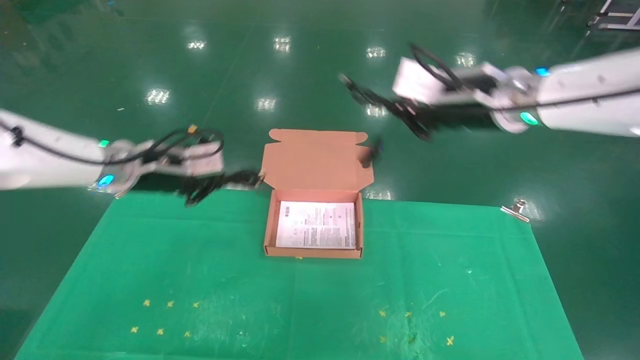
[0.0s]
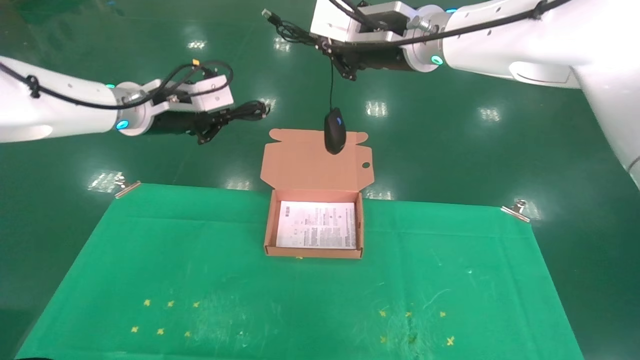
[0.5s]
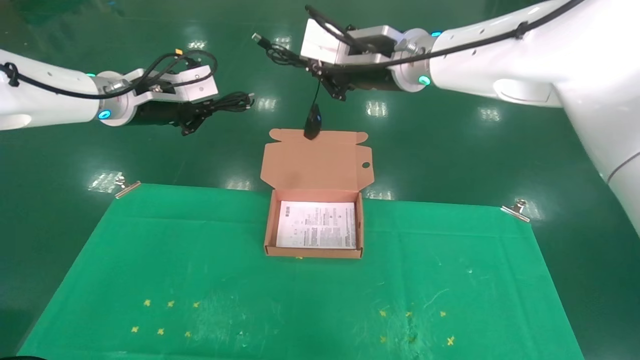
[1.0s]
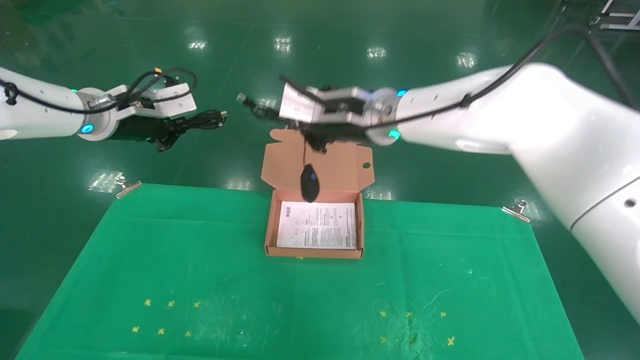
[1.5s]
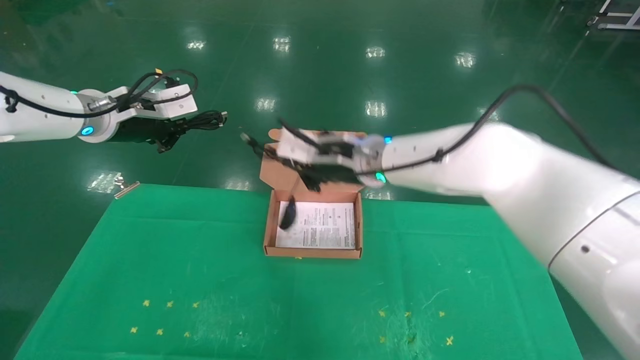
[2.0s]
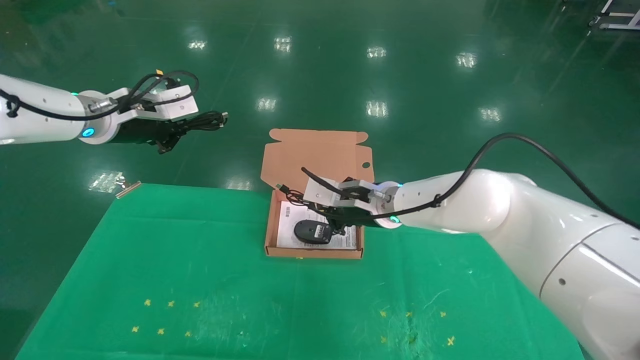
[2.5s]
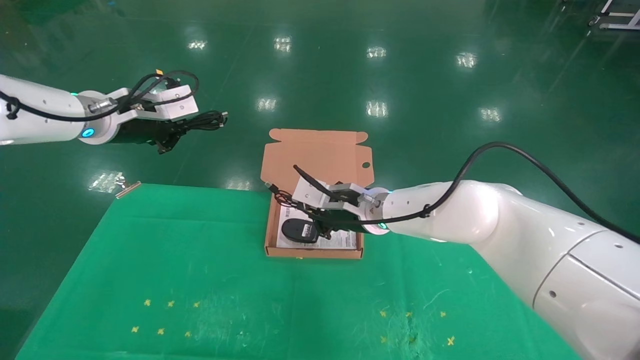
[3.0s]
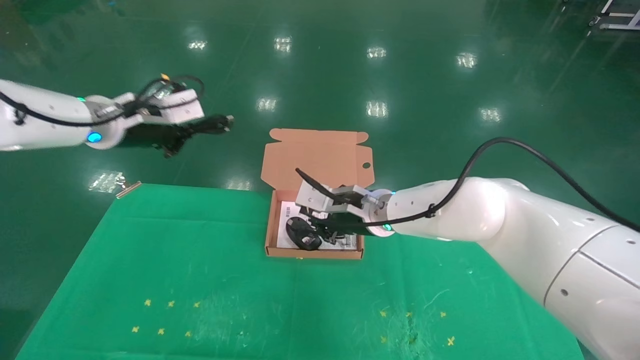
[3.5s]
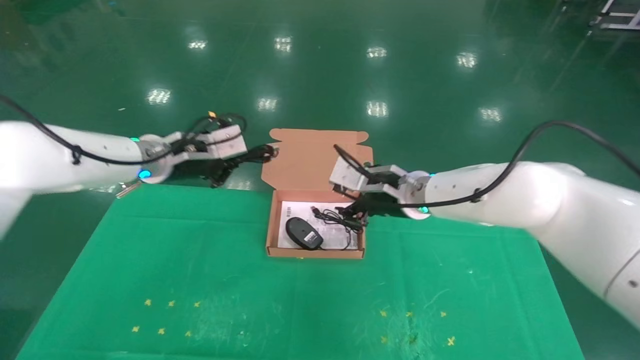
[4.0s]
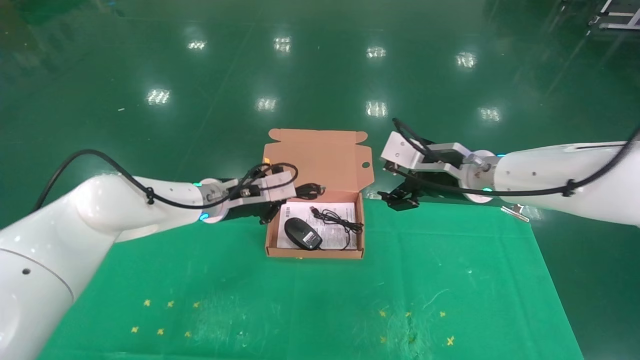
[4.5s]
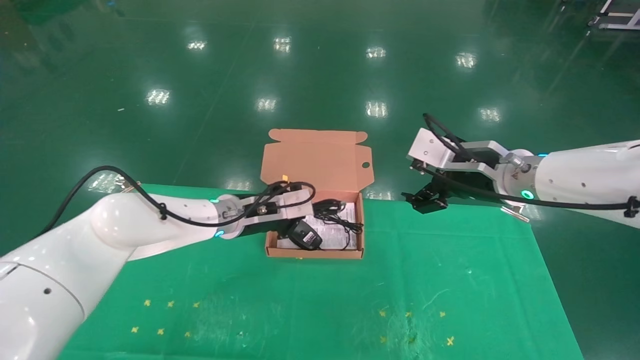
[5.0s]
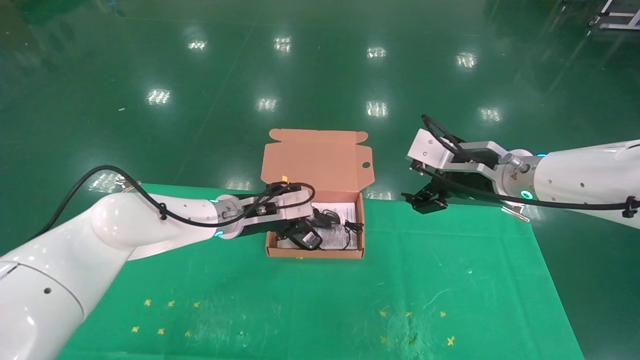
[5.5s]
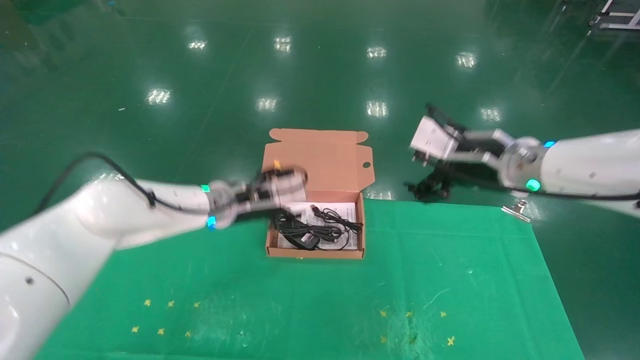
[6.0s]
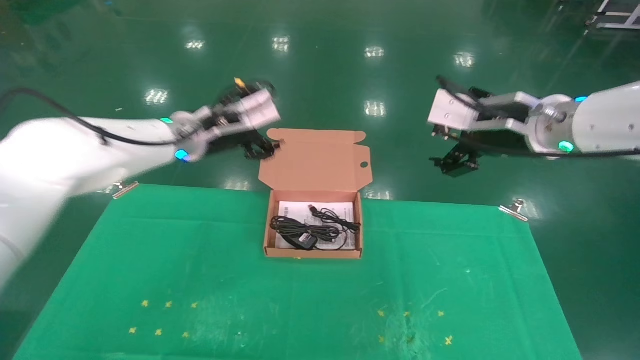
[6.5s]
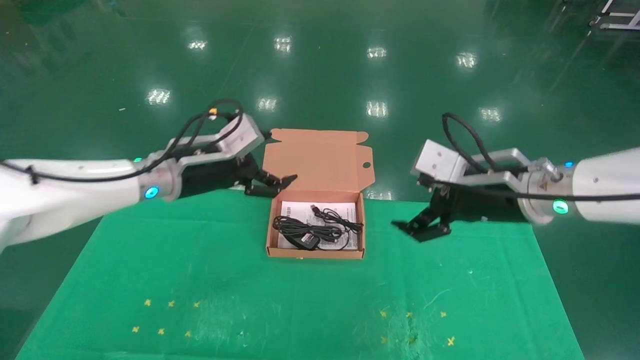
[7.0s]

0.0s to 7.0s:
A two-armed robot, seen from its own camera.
Task of the whole recording: grasp data cable left put into box grasp mouse right put into box.
Step, 0.0s to 4.5s: Place the mouse and power cord into the box.
0.0s to 2.0s: The right gripper travels to the left and downward by approximately 15 cm; the left gripper is displaced upward by some 5 cm.
2.0s to 3.5s: The right gripper is displaced downward by approximately 10 cm.
3.5s to 5.0s: The left gripper shifts about 20 cm downward and to the right; the right gripper moves to the right, upward and backward, approximately 20 cm, and opens up.
5.0s to 7.0s: The left gripper heads upward, to the left and backward, covering about 10 cm, and opens its fingers.

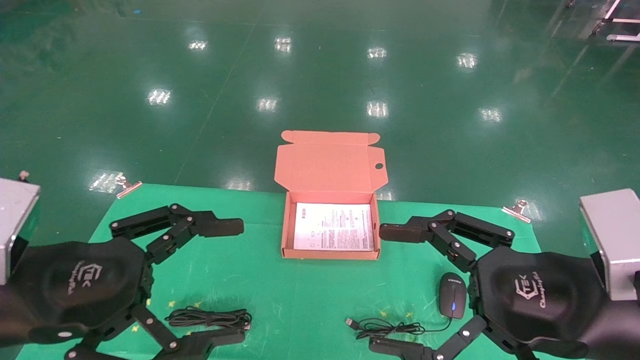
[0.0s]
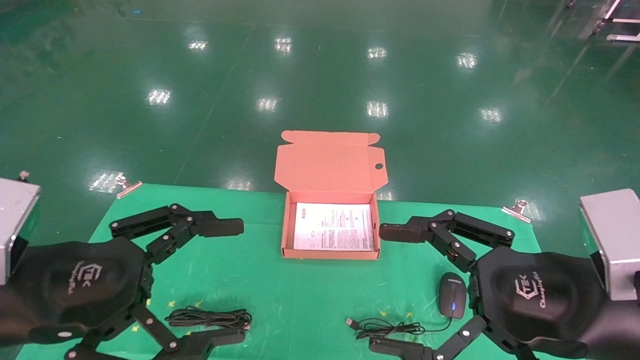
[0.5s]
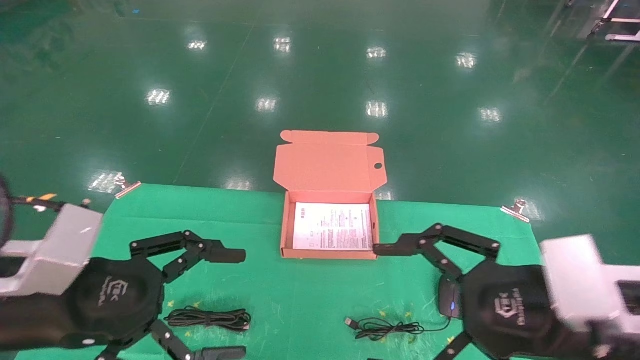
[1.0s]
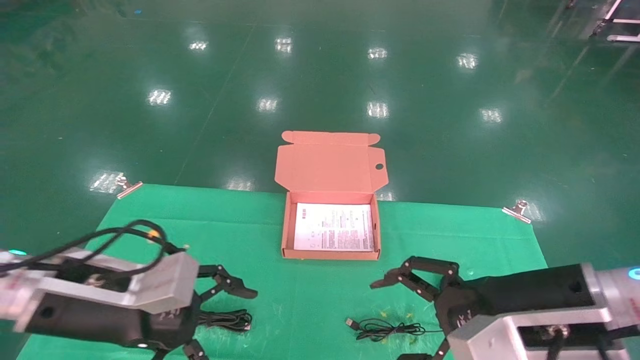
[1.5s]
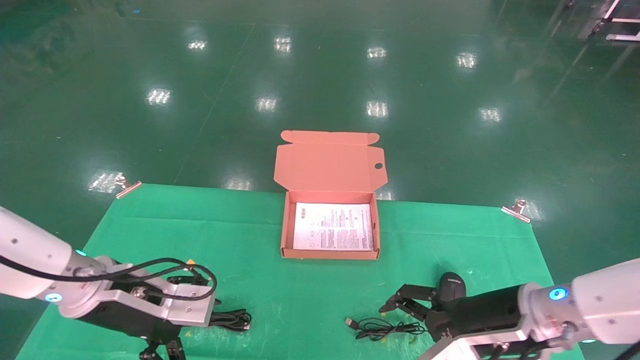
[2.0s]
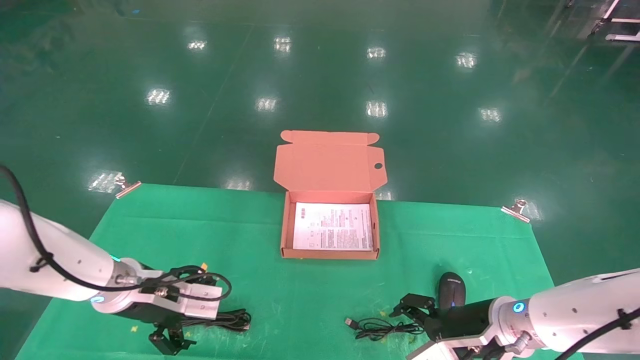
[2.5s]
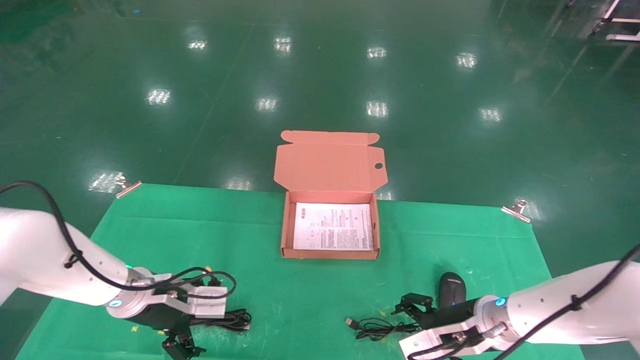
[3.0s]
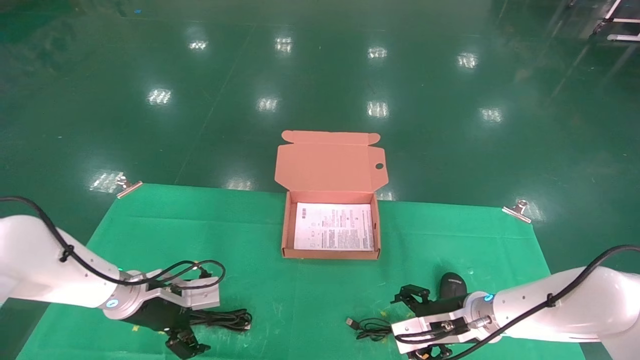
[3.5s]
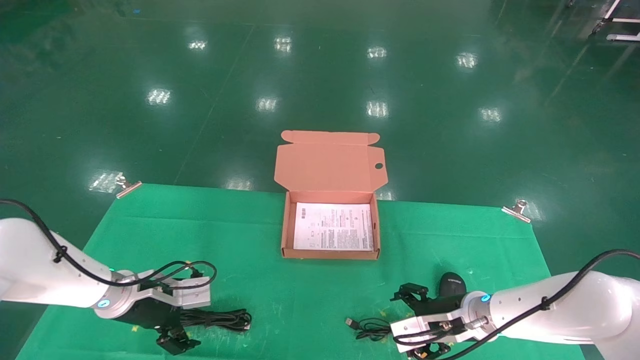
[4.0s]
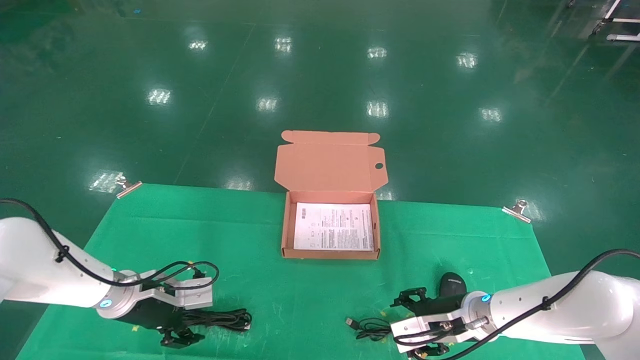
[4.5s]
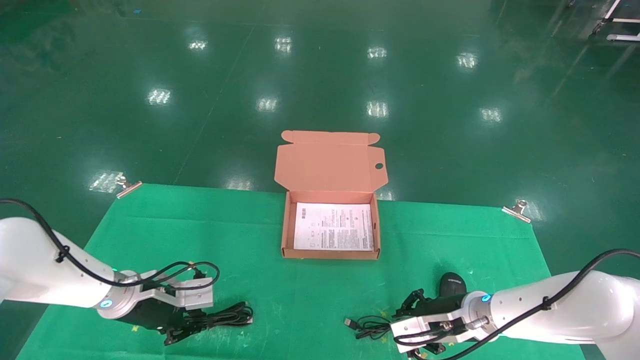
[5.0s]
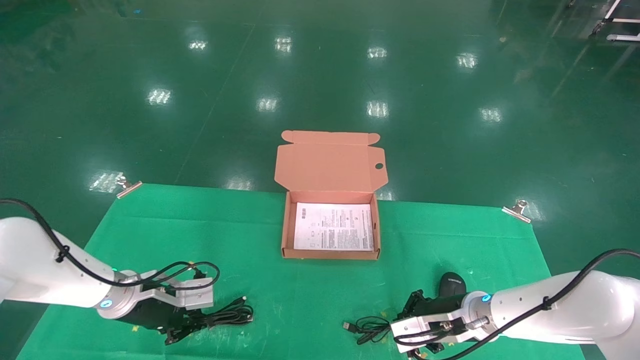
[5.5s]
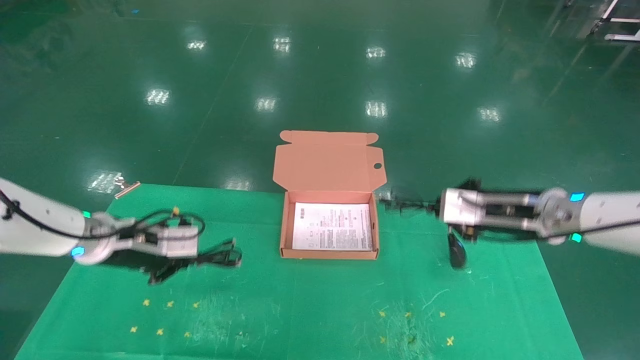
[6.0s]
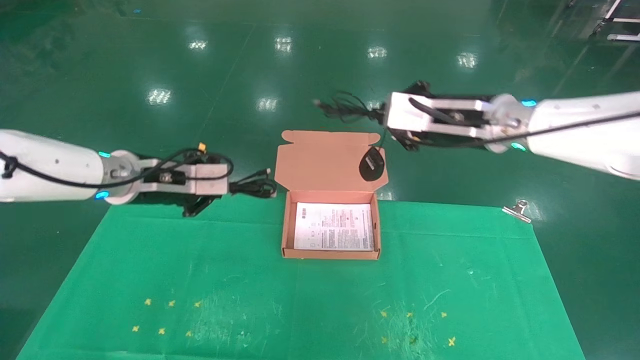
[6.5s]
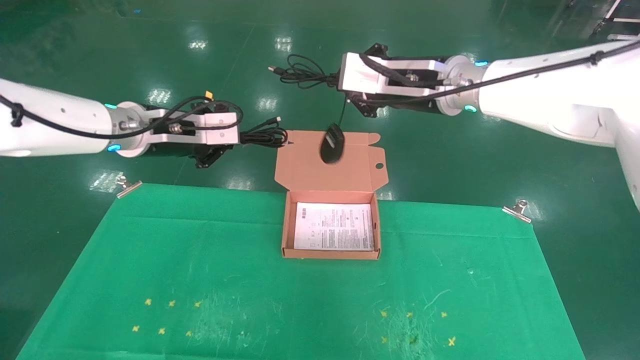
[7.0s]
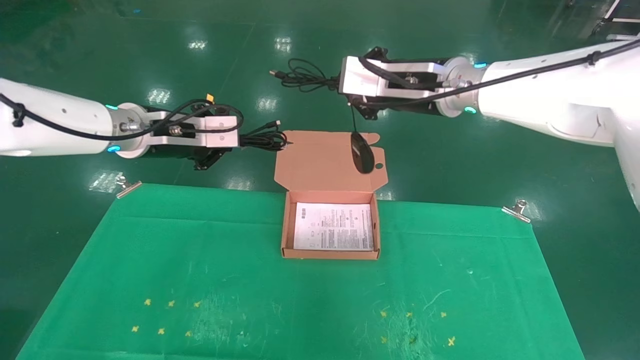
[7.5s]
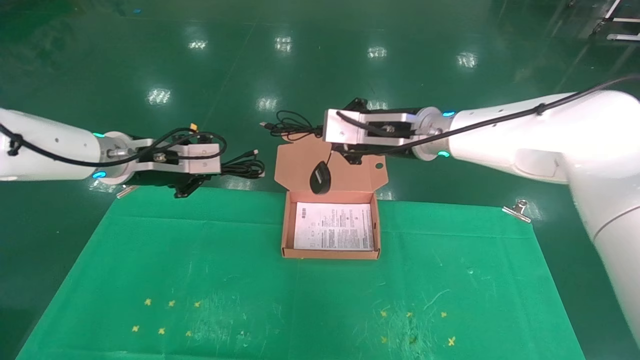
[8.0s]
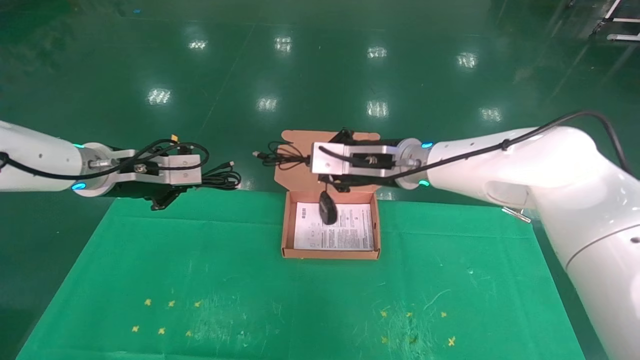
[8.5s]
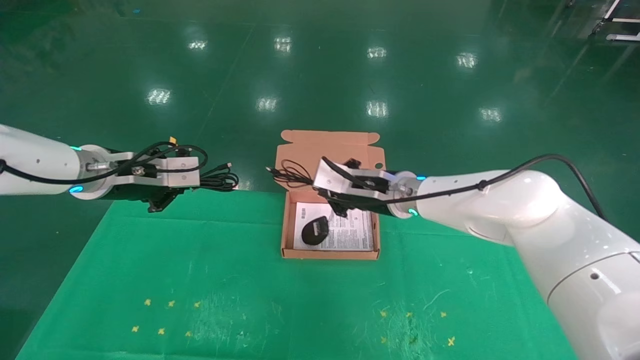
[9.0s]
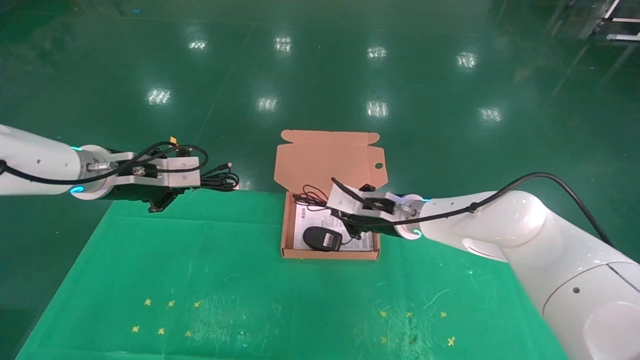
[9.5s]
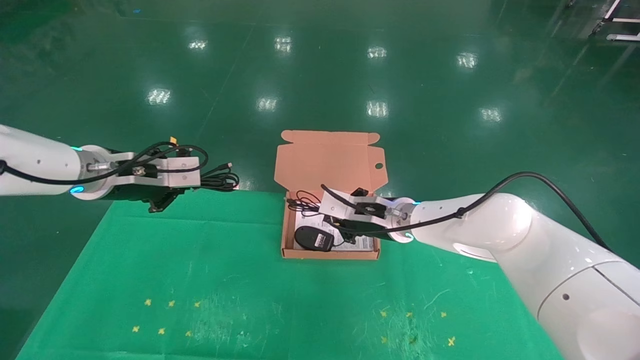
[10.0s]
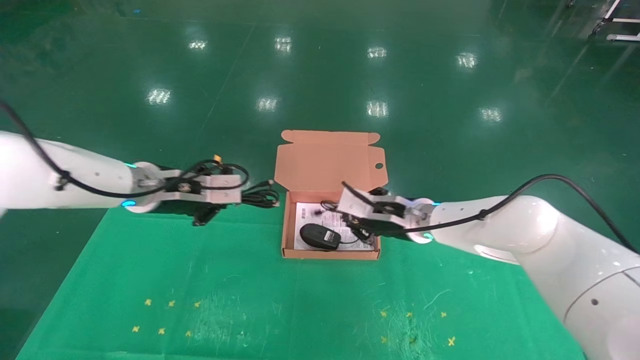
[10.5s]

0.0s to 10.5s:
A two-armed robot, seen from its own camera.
Task of the whole recording: grasp data cable left put into box grasp mouse right put into box.
Step, 1.0s to 5.5s: Grab and pick up both the mouse and power cord from the accessory packaging area at the same time.
0.0s to 2.0s: The two grippers go some 15 cm forward and downward.
2.0s to 4.0s: Both grippers move forward and downward, about 10 cm.
4.0s to 6.5s: The left gripper travels upward by about 20 cm, and closes. Meanwhile the right gripper travels upward by about 30 cm, and closes its fingers.
6.5s to 8.5s: The right gripper moves to the left, about 10 cm.
8.5s to 10.5s: The right gripper is displaced downward by approximately 10 cm; the left gripper moves to the right, some 5 cm.

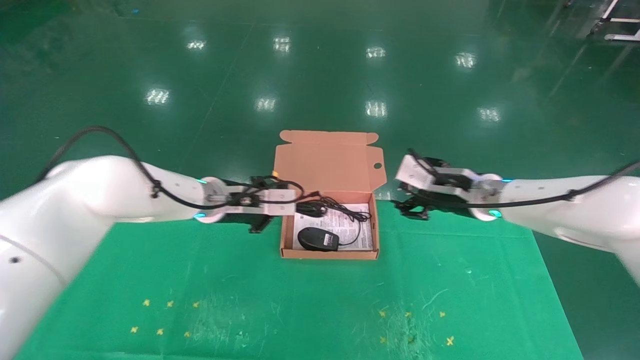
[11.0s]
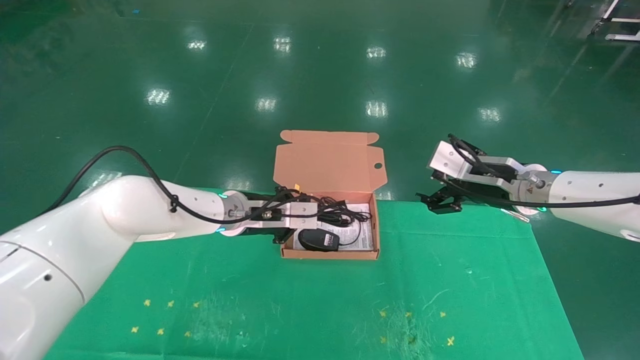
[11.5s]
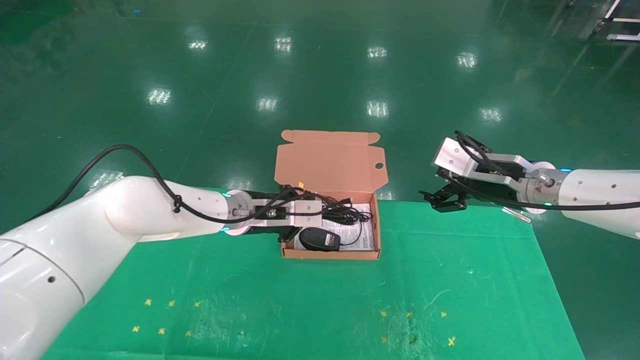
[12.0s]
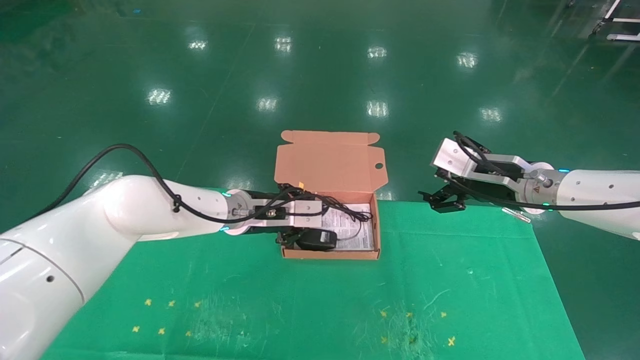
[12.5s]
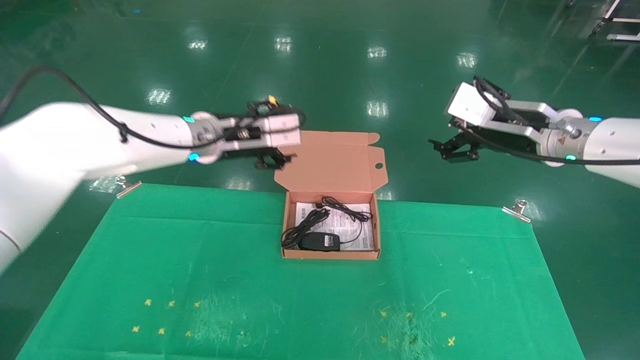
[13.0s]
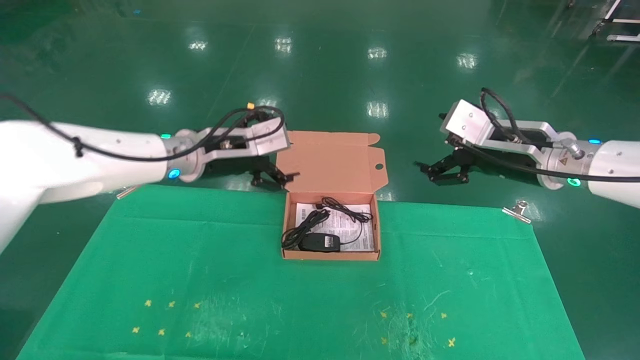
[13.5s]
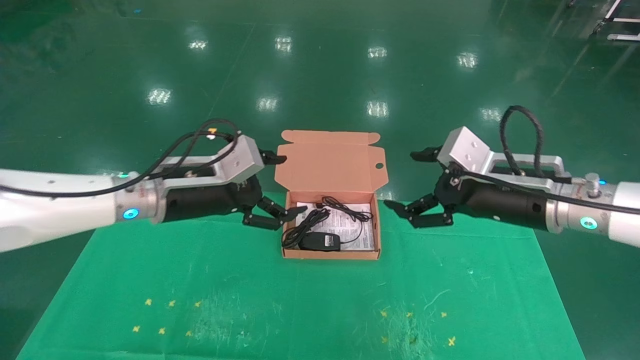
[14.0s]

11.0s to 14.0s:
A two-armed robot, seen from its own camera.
Task of the whole recording: grasp data cable left put into box grasp mouse right put into box.
11.0s to 12.5s: The right gripper goes some 5 cm to the right, and opens, while the left gripper ends up some 5 cm from where it was.
12.5s to 14.0s: The right gripper is displaced backward by about 5 cm, while the left gripper heads backward, to the left and upward, covering roughly 15 cm, and opens up.
